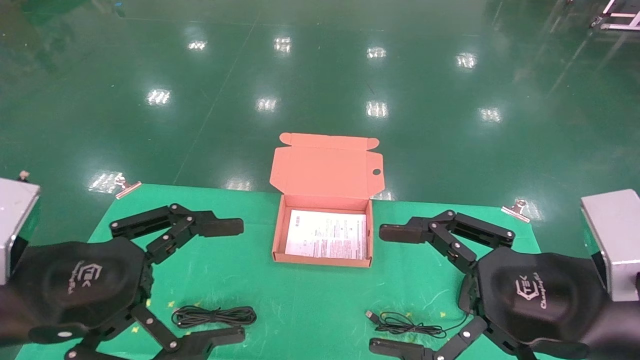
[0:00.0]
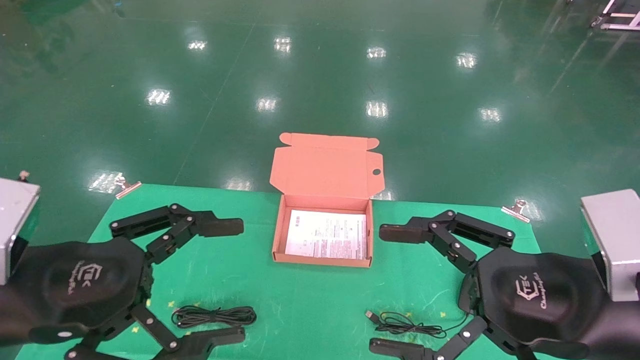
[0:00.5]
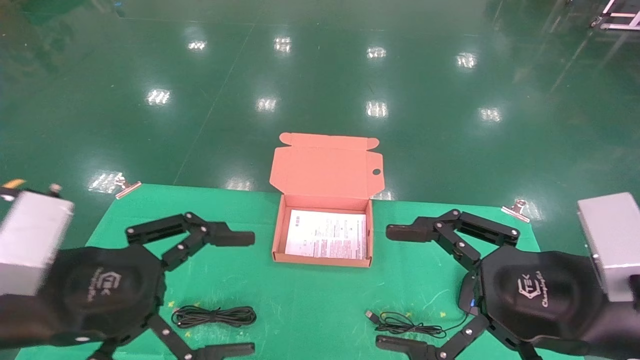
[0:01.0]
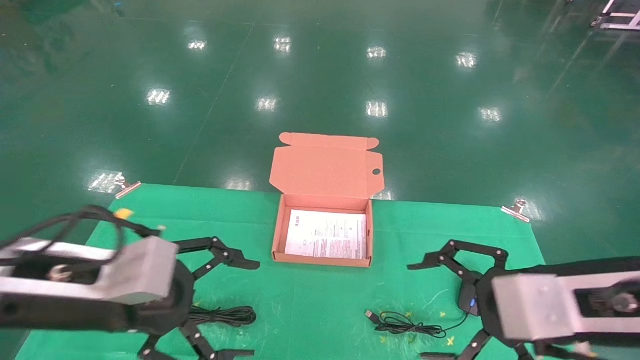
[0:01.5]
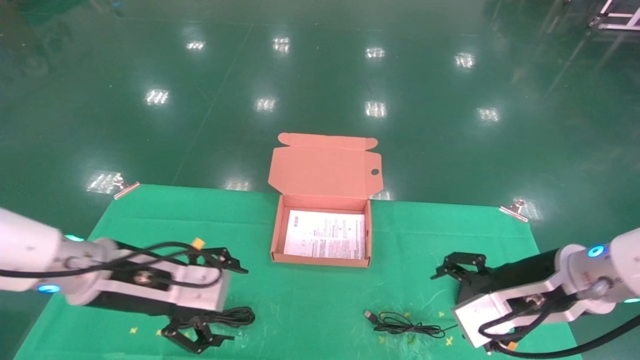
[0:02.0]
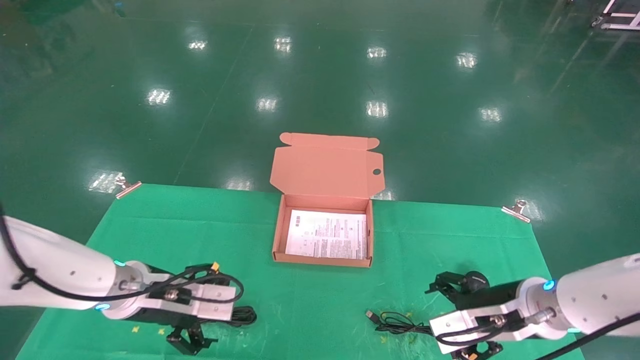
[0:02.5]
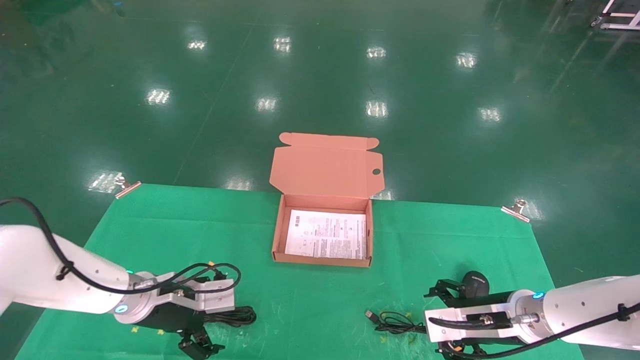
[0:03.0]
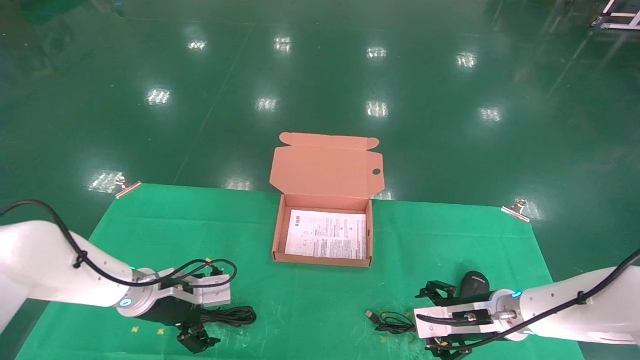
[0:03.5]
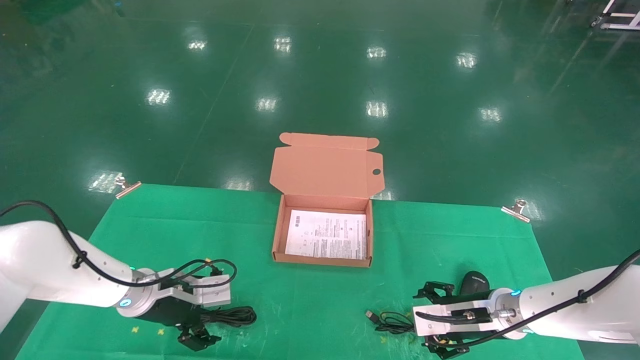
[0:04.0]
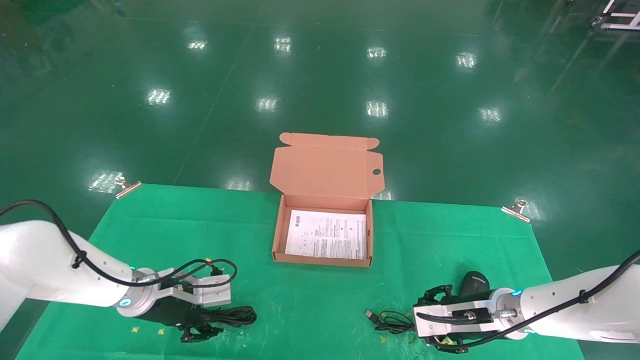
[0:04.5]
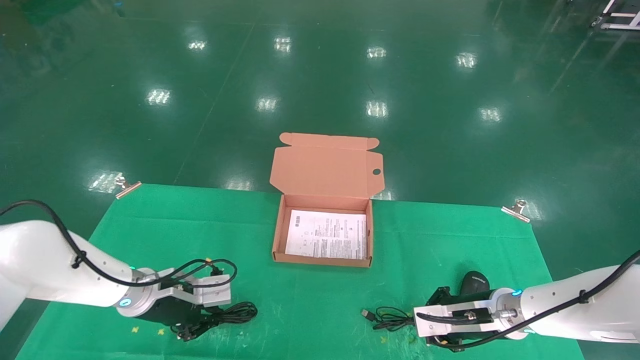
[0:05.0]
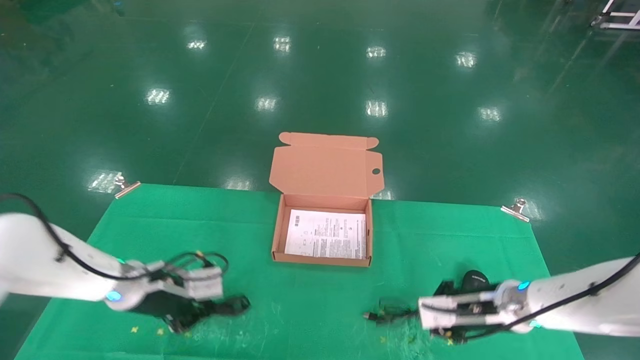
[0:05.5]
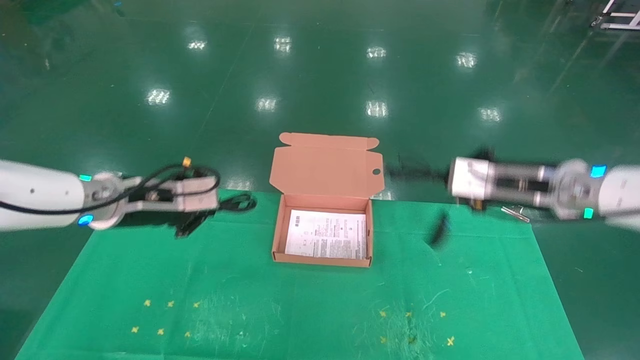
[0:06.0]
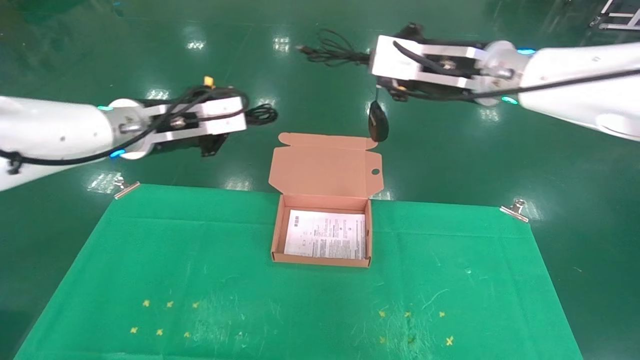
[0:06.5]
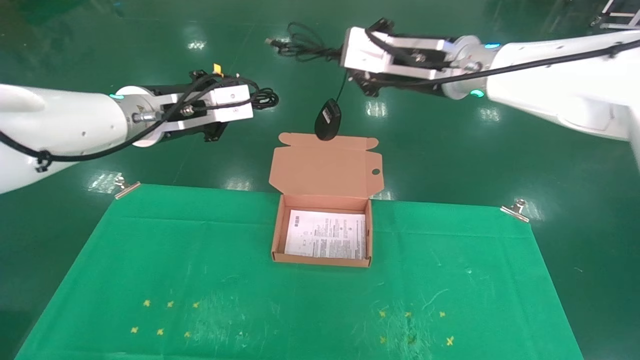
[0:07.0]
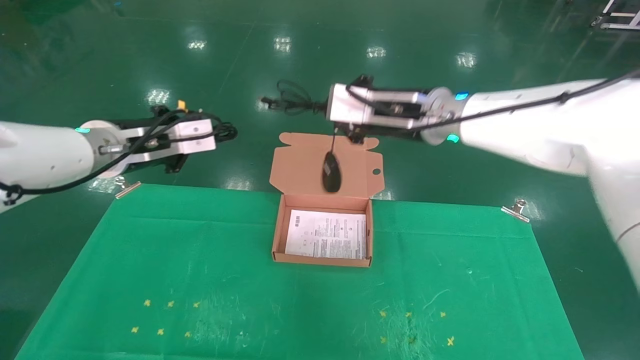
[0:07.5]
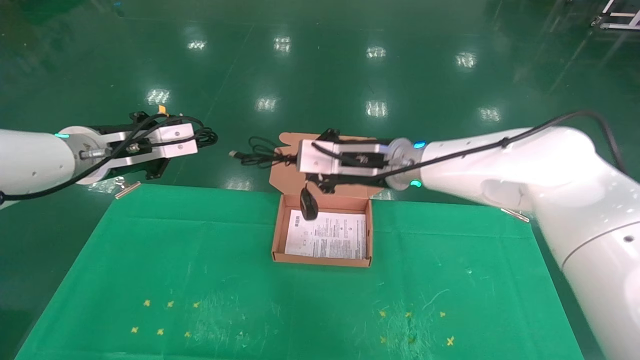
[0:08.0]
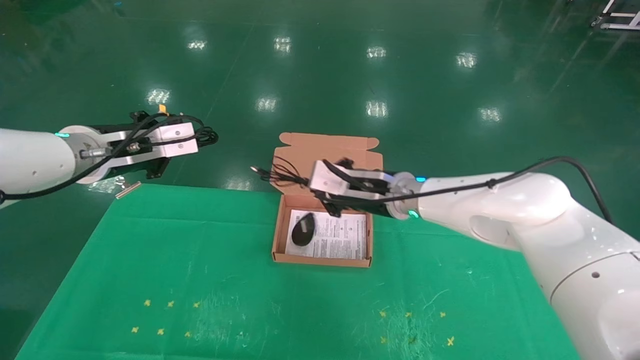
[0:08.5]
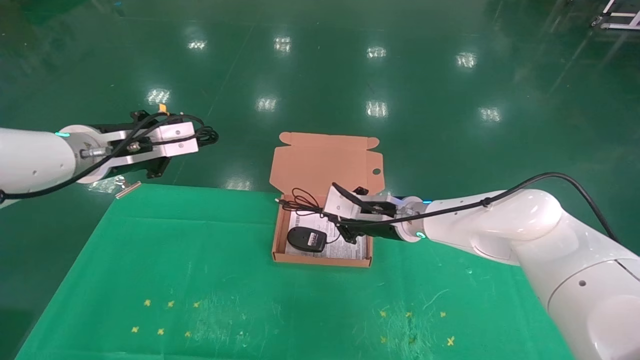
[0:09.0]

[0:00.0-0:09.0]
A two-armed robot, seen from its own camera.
Task of the whole recording: grasp data cable left put into box grasp mouse right put into box.
Step, 0:01.5 to 0:05.0: Grab and pick up both the mouse and power cord from the accessory packaging area at the same time.
0:00.0 to 0:02.0: The two grippers go roughly 15 cm forward and downward.
0:02.0 to 0:04.5: The left gripper is displaced forward and downward by about 15 cm, and closes up, while the right gripper is displaced downward and forward by some 15 cm, and closes.
0:04.5 to 0:07.0: The grippers both shift upward by some 30 cm. The left gripper closes its fingers. The right gripper closes.
0:07.0 to 0:09.0: The right gripper moves downward, approximately 20 cm. The left gripper moves to the left, roughly 5 cm.

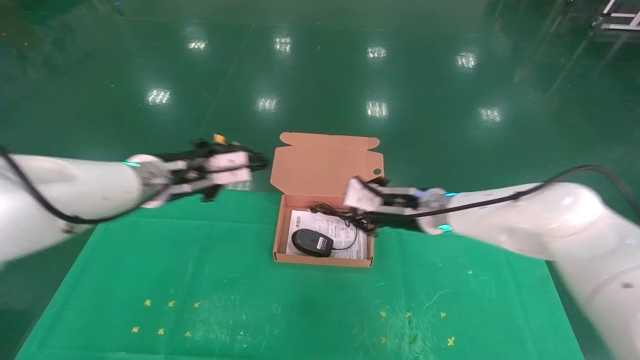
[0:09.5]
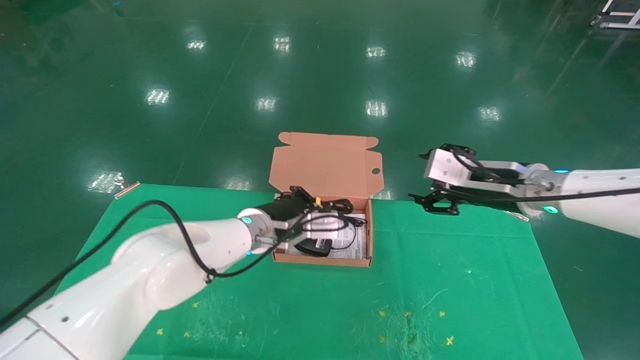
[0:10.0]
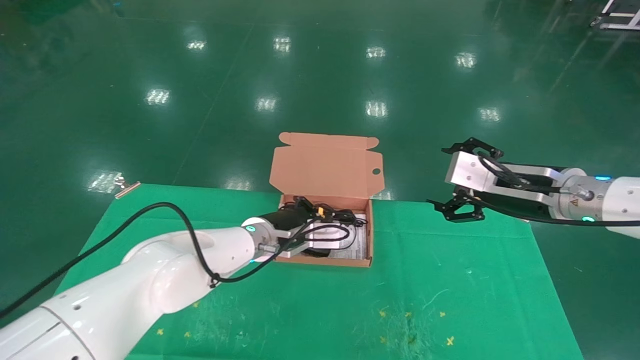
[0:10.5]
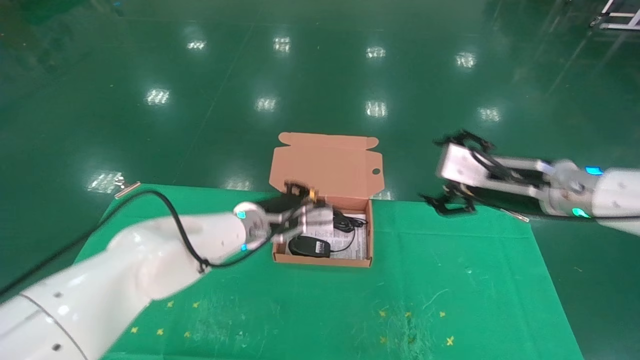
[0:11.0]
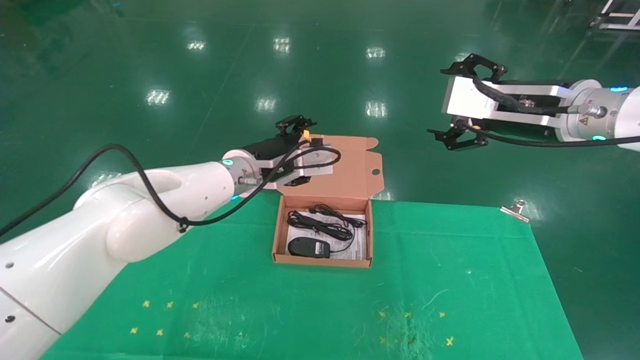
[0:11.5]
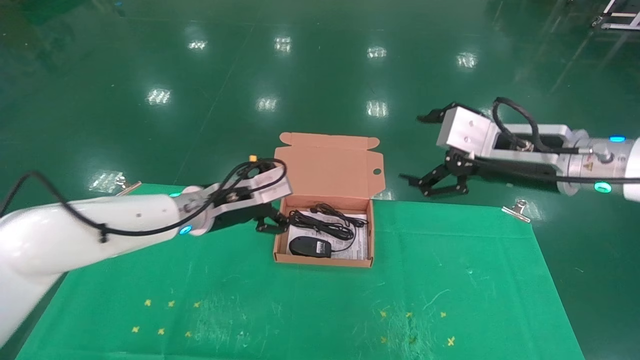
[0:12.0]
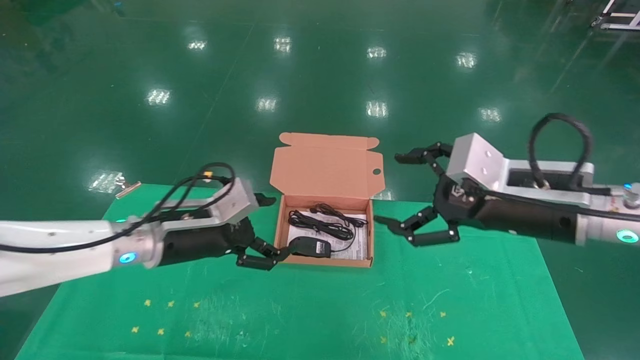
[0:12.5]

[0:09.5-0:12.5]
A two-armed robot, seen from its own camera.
Task of the whole recording: grasp data cable left put into box grasp mouse right put into box.
0:09.5 to 0:11.0: The left gripper is displaced to the right and downward by roughly 10 cm. The right gripper heads to the right, upward and backward, covering about 15 cm, and opens.
0:11.0 to 0:12.5: The left gripper travels to the left and backward by about 15 cm, and opens up; the right gripper goes some 5 cm backward, and moves roughly 5 cm upward and comes back.
